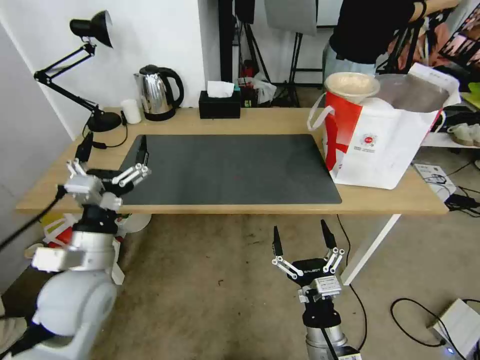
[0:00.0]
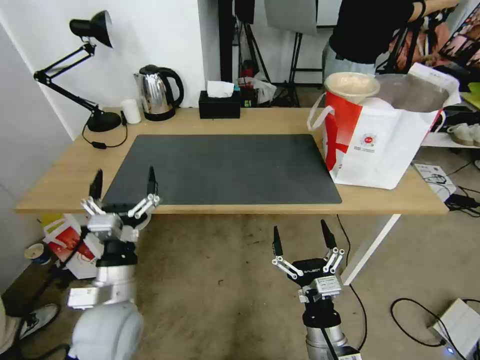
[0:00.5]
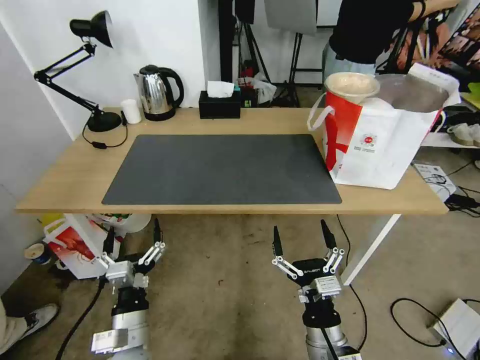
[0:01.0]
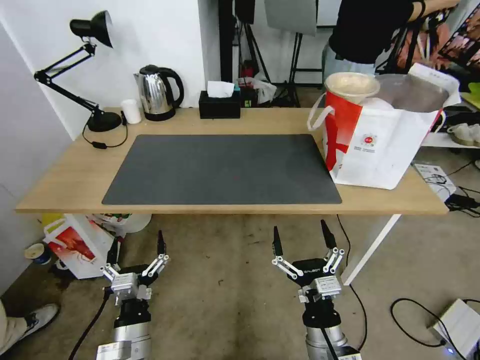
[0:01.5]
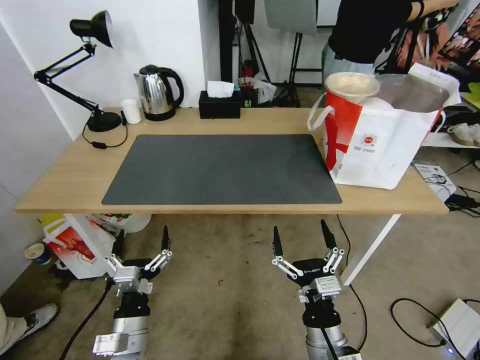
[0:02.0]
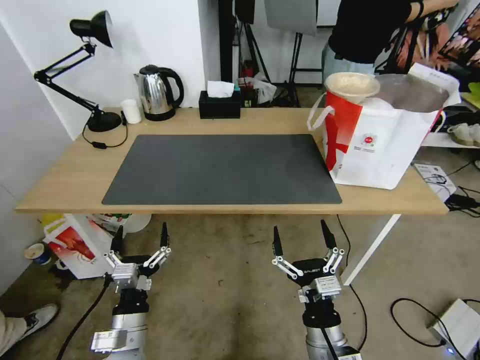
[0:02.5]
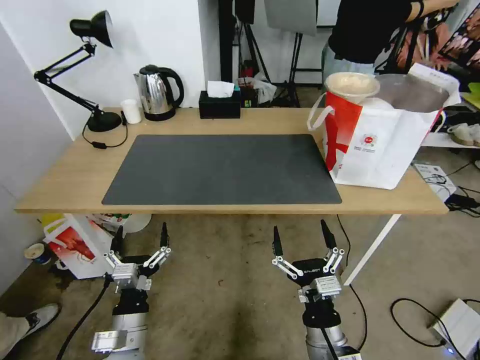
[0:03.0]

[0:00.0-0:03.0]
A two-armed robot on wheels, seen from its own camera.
Task of the whole recording: Pick up the trash from the table and place it into the takeout bag.
0:00.0 to 0:01.5: The left gripper is displaced downward, backward and to the right by some 20 cm.
0:01.5 to 0:03.0: The grippers move only a little.
